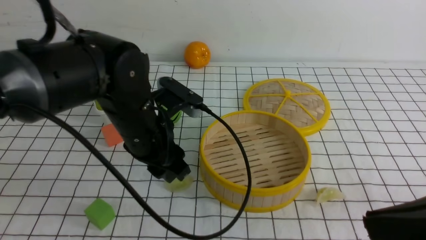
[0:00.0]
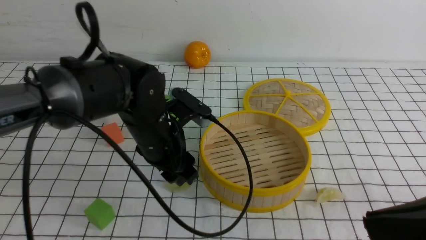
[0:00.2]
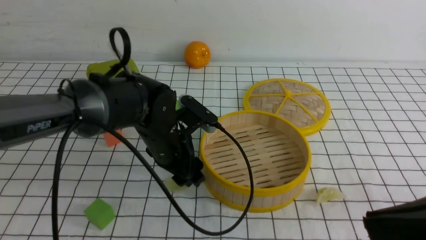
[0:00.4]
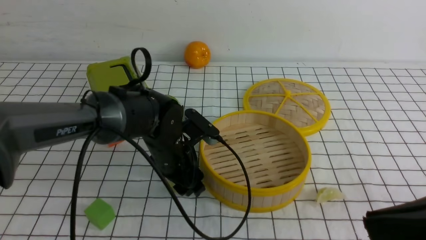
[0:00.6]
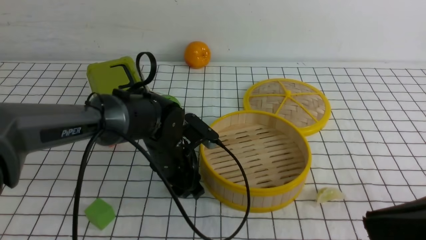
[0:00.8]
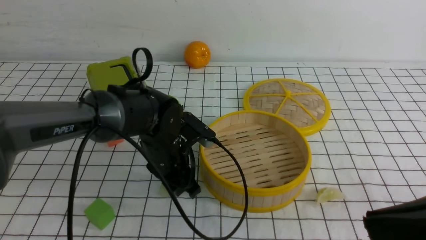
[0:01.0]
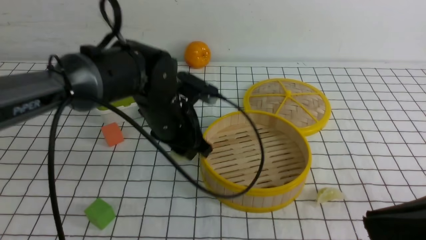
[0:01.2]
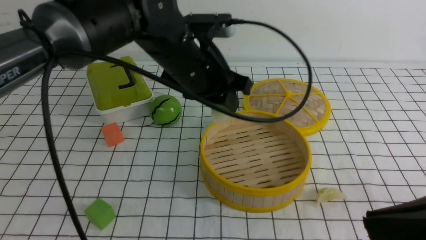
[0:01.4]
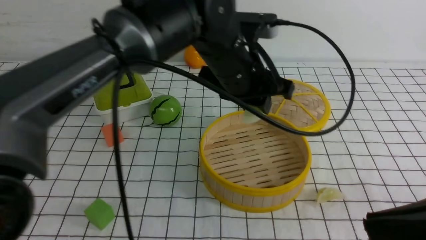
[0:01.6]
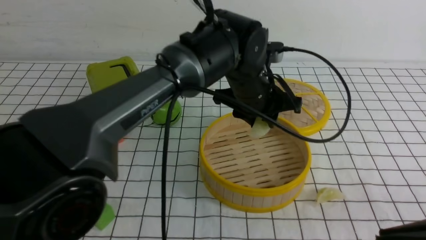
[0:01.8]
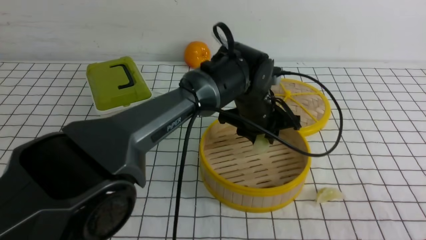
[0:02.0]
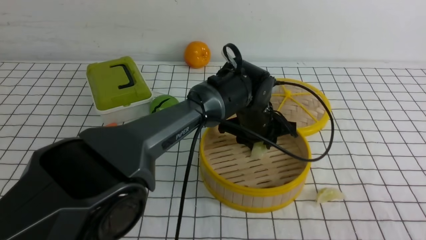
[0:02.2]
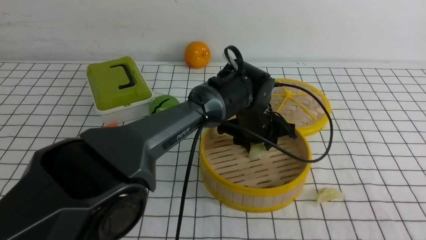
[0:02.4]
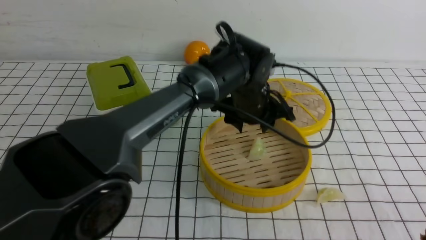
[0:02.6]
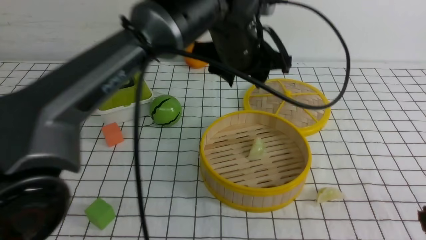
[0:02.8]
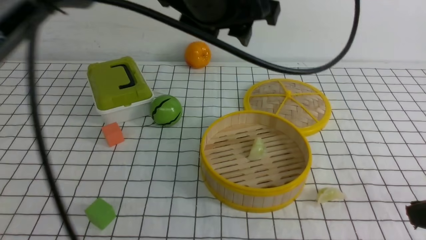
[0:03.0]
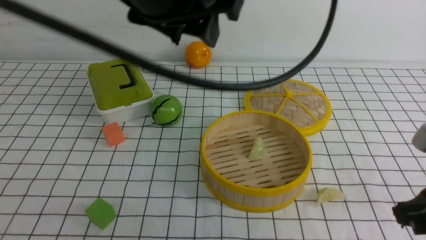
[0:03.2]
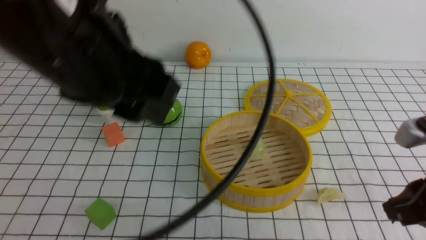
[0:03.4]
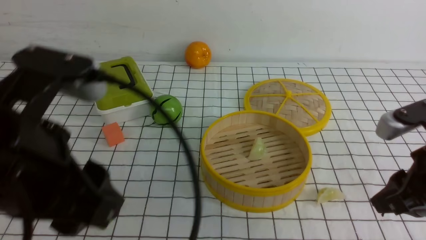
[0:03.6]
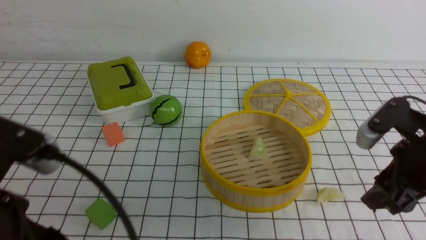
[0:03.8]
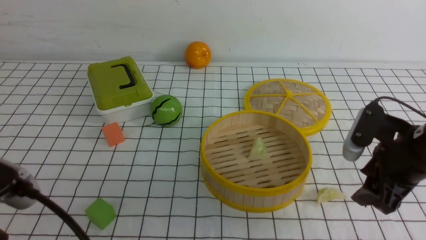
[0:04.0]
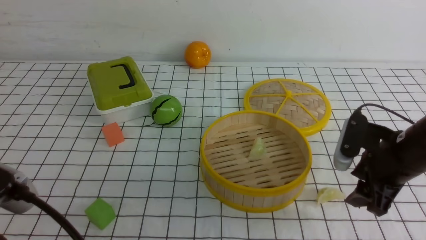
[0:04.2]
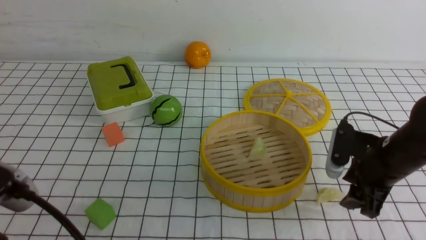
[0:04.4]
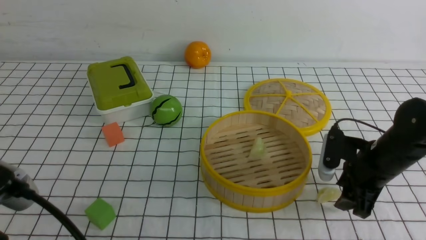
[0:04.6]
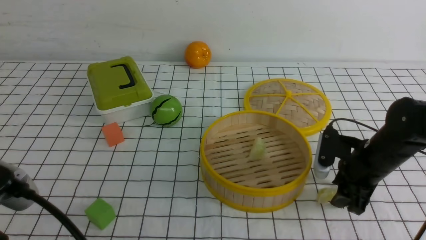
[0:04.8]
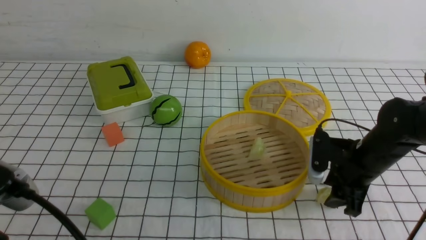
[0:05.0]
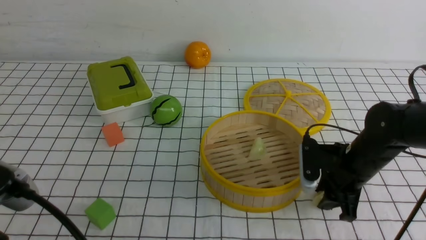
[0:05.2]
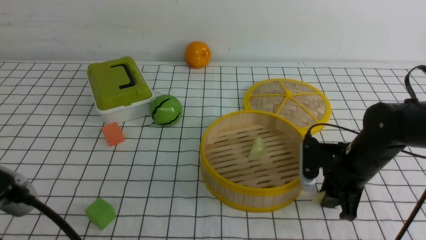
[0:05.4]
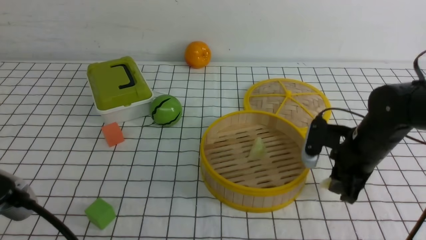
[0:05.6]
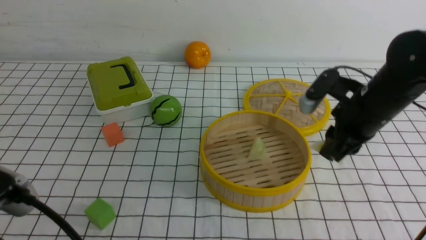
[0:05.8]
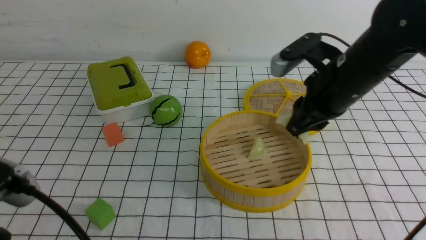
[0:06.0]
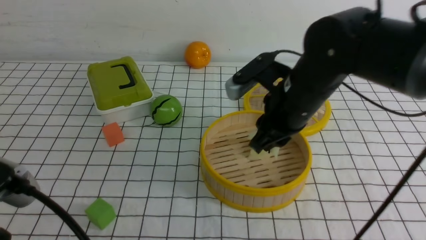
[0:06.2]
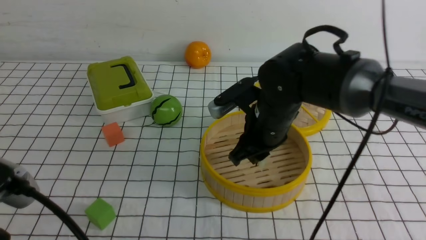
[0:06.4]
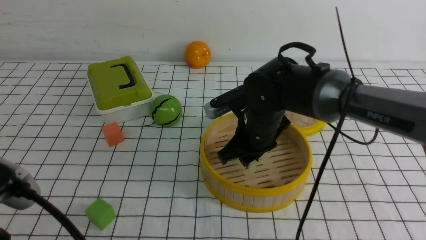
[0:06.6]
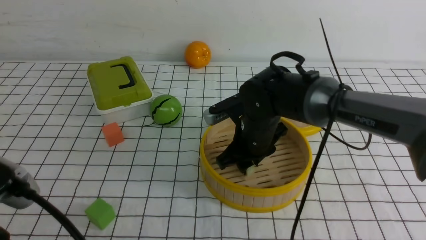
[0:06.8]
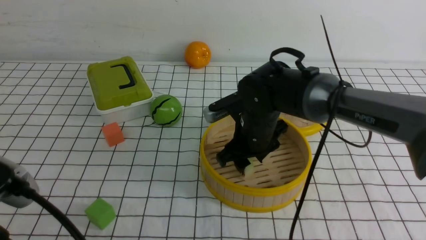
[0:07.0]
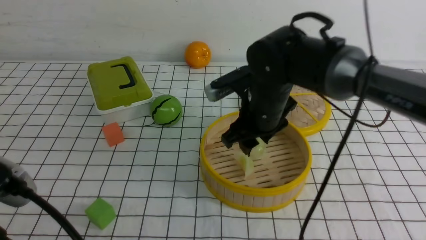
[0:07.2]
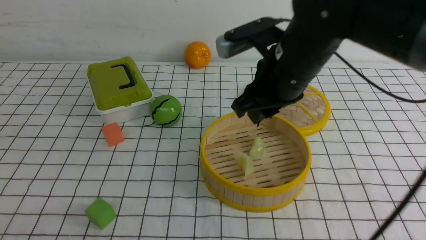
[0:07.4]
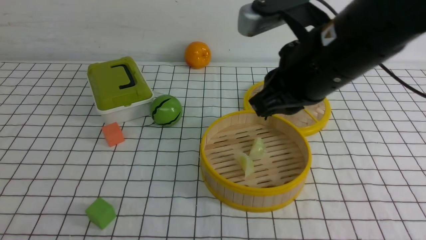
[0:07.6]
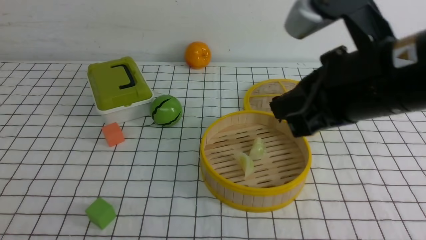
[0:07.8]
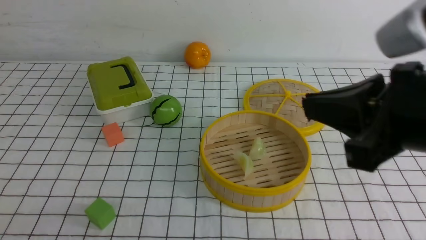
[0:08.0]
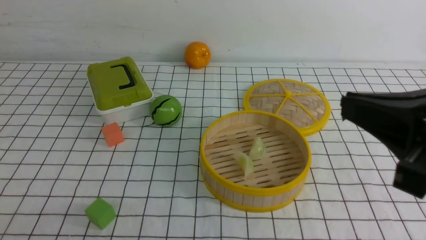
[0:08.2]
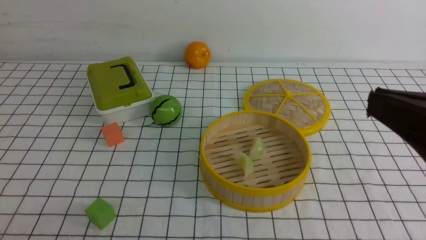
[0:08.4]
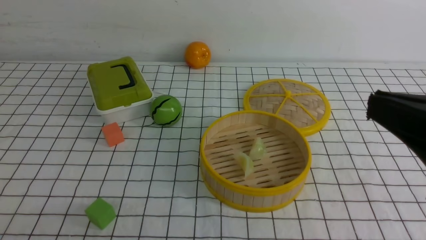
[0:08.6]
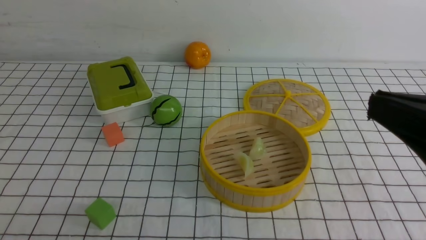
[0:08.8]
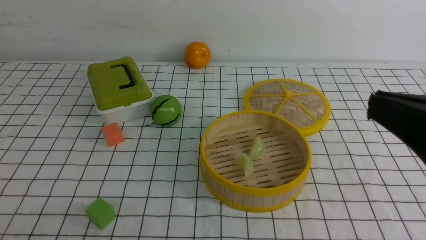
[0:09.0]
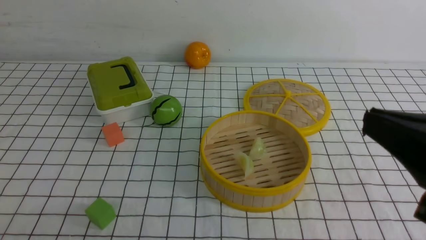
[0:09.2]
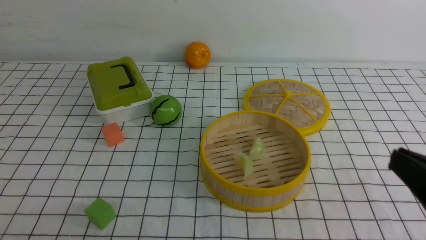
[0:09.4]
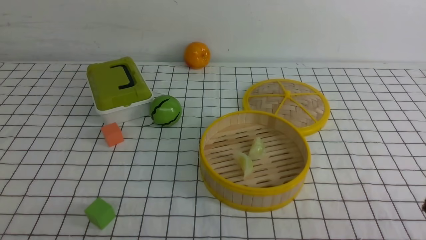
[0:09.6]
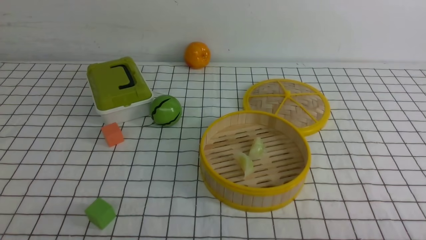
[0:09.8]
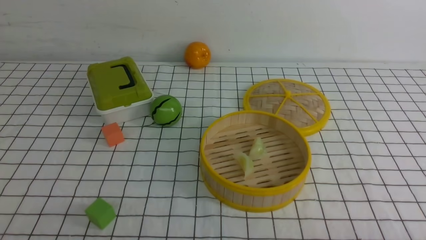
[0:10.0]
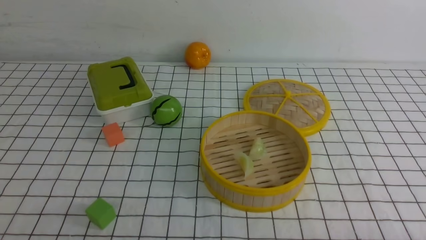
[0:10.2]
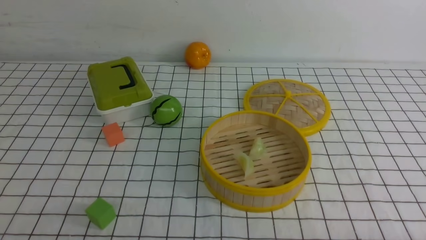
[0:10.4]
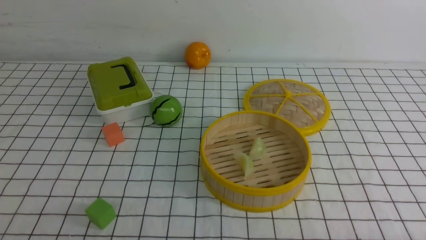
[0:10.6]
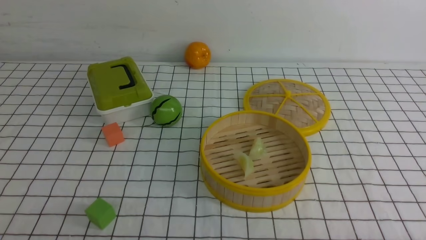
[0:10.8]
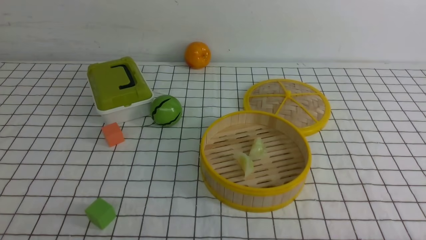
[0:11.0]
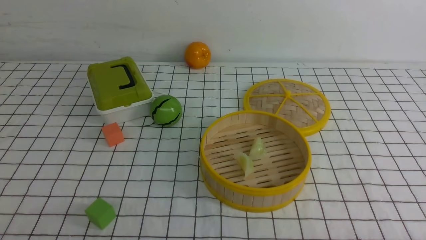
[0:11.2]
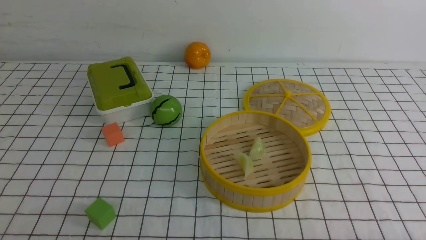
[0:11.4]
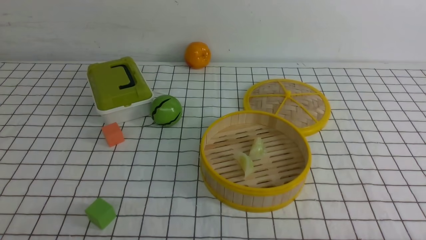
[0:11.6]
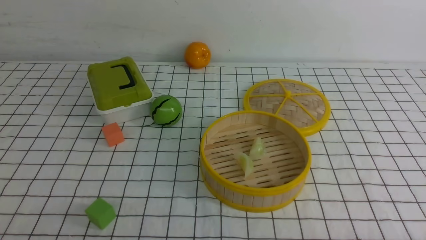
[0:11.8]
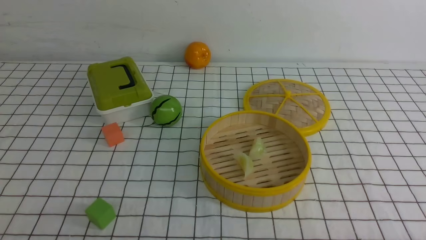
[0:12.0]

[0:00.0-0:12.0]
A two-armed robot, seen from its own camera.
Task of the whole recording: put the dumplings into the steamer on the table with the white tablecloth.
Step, 0:01.6 to 0:02.8: use the left arm to put the dumpling into the steamer.
Step, 0:03.0 to 0:05.4: use the right arm to grab a dumpling.
Step, 0:05.8 to 0:07.4: use the right arm to put the dumpling into the steamer.
0:00.0 to 0:01.6: The left gripper goes roughly 15 cm to the right, forward and upward.
0:01.6 to 0:03.0: The right gripper shifts by roughly 5 cm. The left gripper moves upward and backward, approximately 15 cm.
0:03.0 to 0:04.4: The right gripper heads forward and downward, covering approximately 20 cm, and opens its fingers. Meanwhile the left gripper travels backward, to the left and downward by some 30 cm.
0:04.4 to 0:06.0: The right gripper moves upward and to the left, roughly 15 cm, and closes.
0:06.0 to 0:07.6: The left gripper is displaced to the left by roughly 5 cm, and closes, while the right gripper travels upward and backward by some 10 cm, and opens and closes again.
0:07.6 to 0:09.0: The right gripper heads backward and to the right, covering some 20 cm.
0:09.0 to 0:10.4: The right gripper travels downward and to the right by about 20 cm.
0:10.4 to 0:12.0: Both grippers stay about where they are.

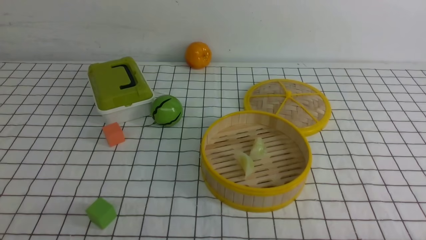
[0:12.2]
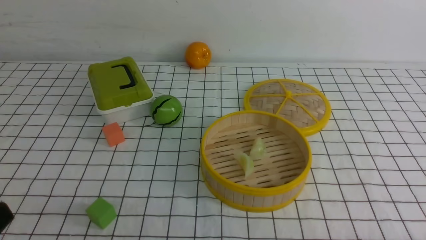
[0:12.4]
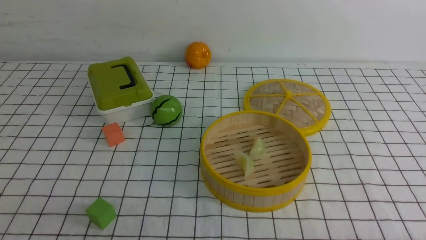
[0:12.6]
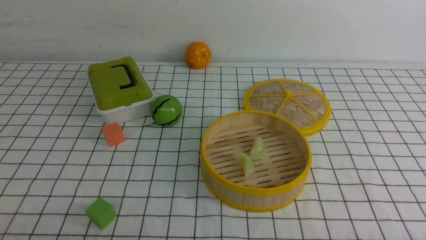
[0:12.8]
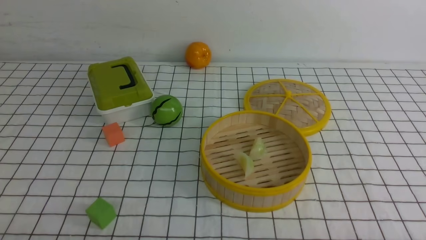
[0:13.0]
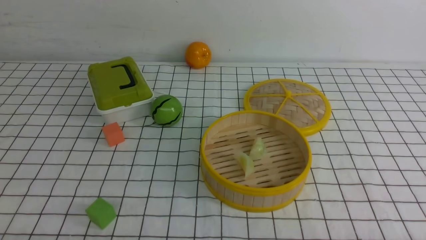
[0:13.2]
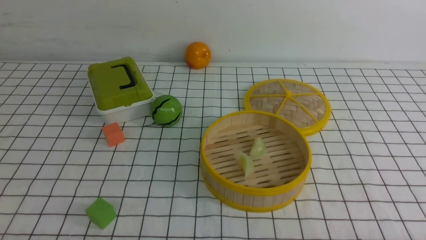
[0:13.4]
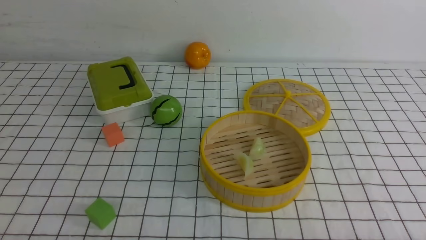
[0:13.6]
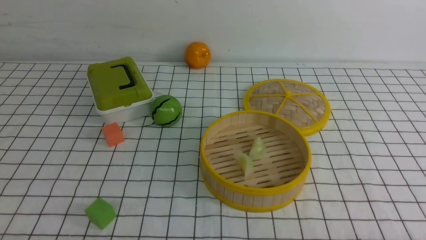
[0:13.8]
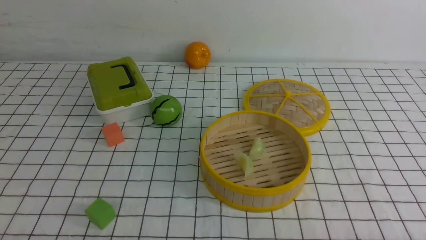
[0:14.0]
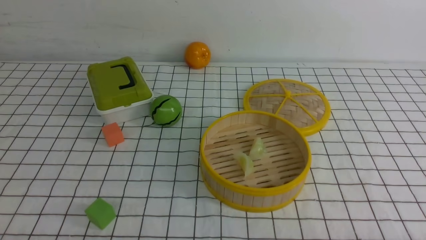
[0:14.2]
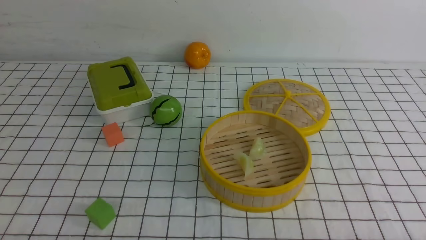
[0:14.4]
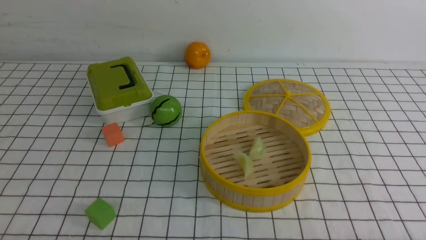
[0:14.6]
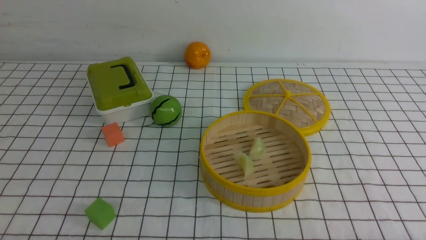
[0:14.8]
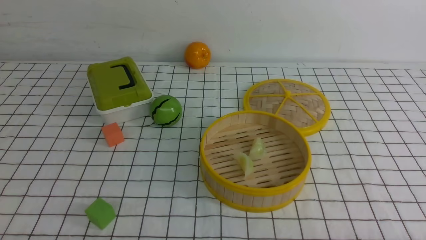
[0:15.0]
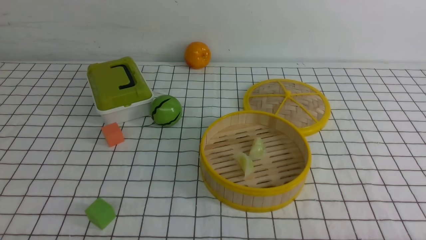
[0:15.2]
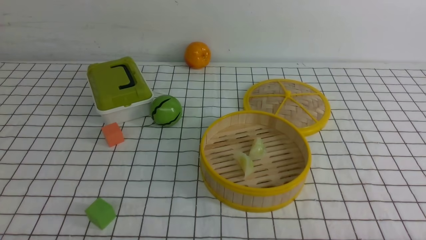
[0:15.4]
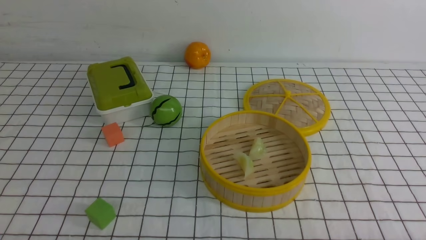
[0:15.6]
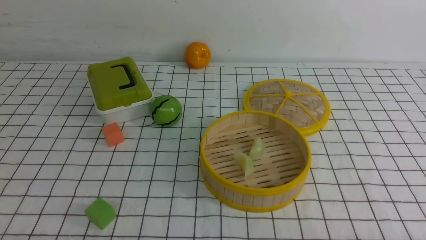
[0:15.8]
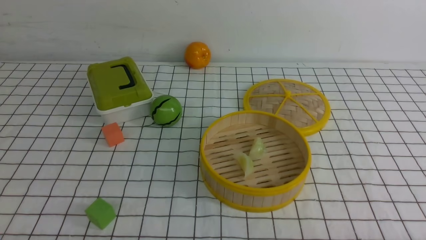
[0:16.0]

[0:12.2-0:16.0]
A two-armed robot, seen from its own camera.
Task of the whole recording: put the dumplings into the steamer on the table with the white tablecloth.
0:13.4 to 0:16.0: Both grippers stay about where they are.
